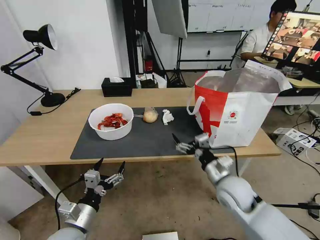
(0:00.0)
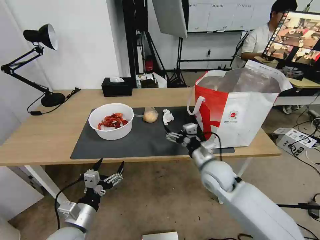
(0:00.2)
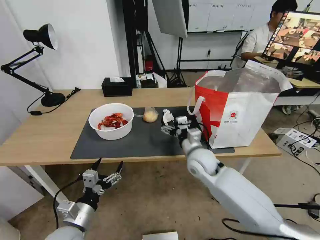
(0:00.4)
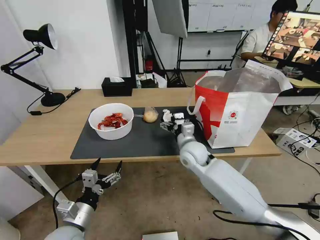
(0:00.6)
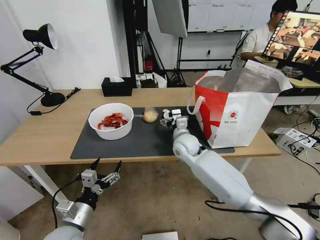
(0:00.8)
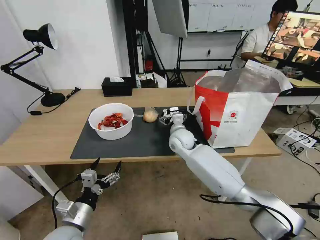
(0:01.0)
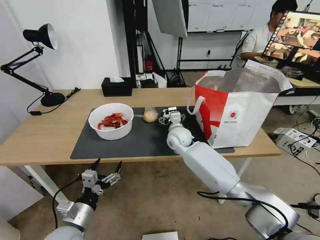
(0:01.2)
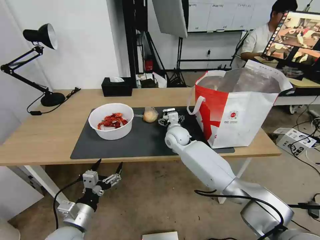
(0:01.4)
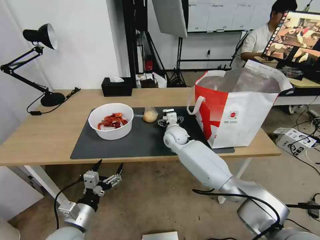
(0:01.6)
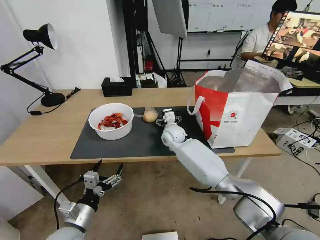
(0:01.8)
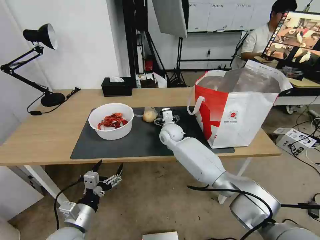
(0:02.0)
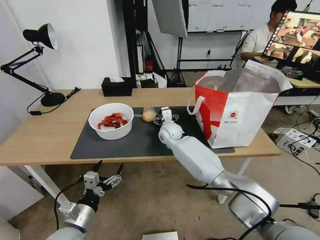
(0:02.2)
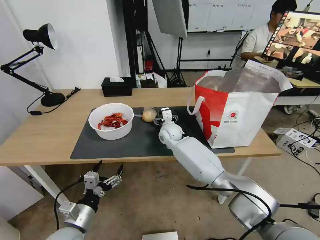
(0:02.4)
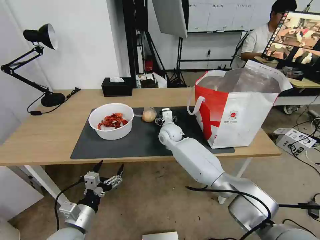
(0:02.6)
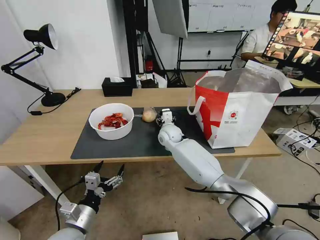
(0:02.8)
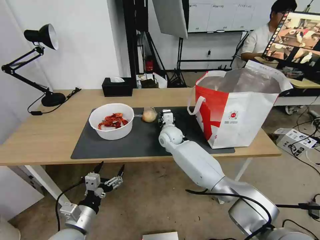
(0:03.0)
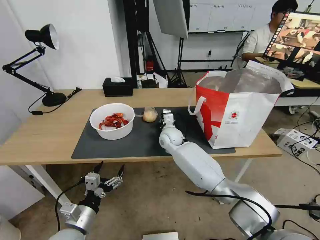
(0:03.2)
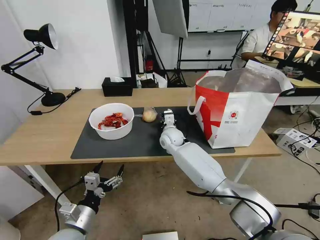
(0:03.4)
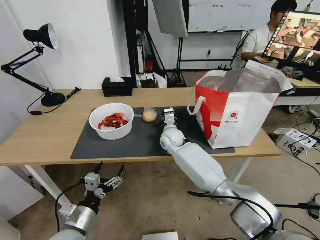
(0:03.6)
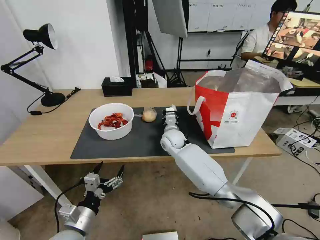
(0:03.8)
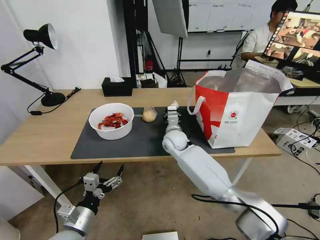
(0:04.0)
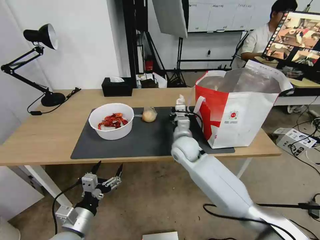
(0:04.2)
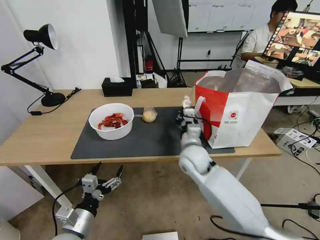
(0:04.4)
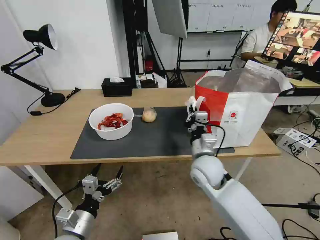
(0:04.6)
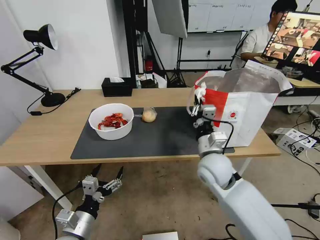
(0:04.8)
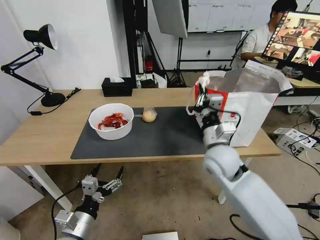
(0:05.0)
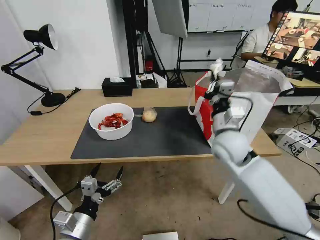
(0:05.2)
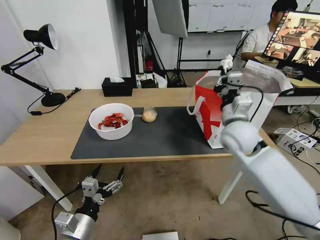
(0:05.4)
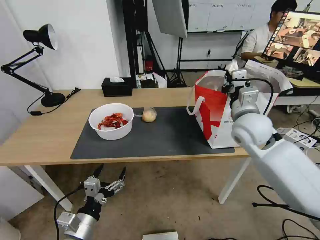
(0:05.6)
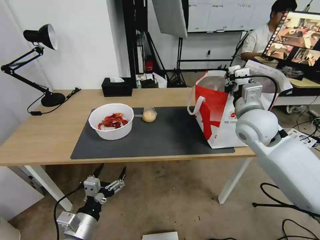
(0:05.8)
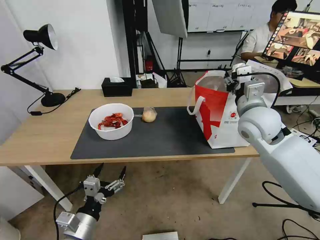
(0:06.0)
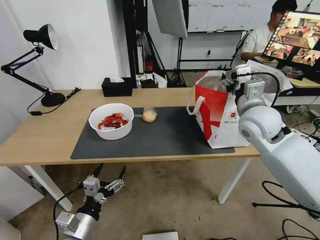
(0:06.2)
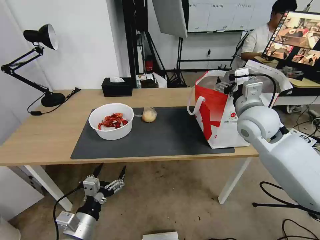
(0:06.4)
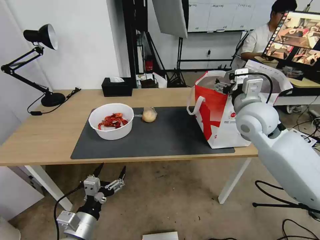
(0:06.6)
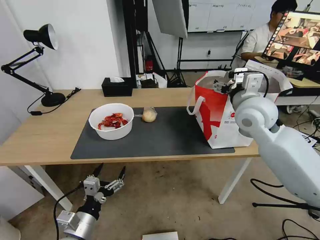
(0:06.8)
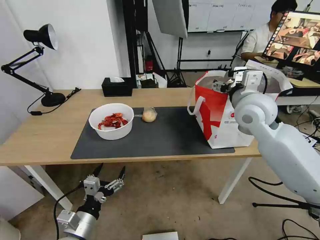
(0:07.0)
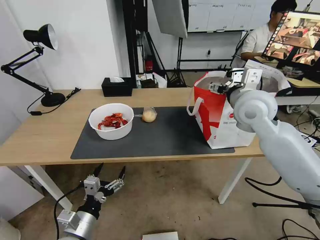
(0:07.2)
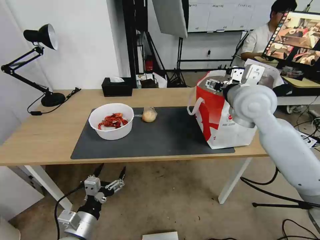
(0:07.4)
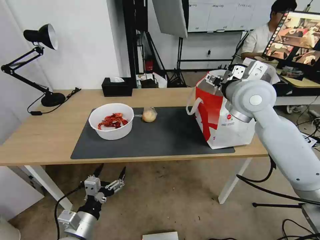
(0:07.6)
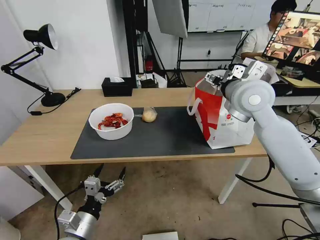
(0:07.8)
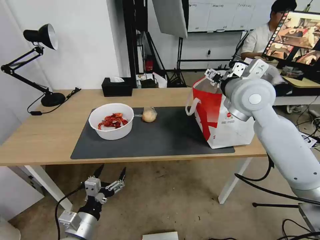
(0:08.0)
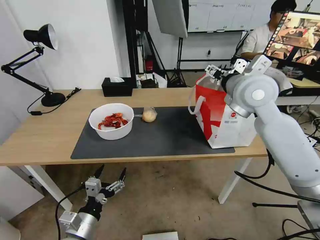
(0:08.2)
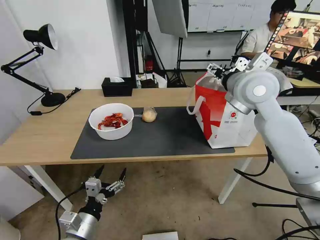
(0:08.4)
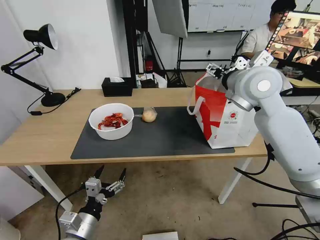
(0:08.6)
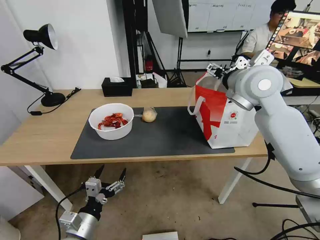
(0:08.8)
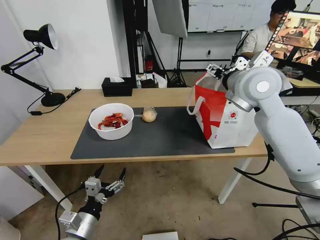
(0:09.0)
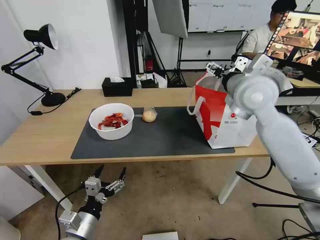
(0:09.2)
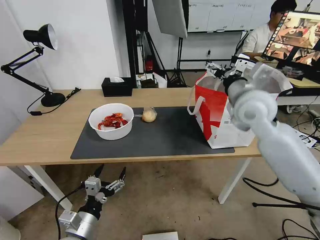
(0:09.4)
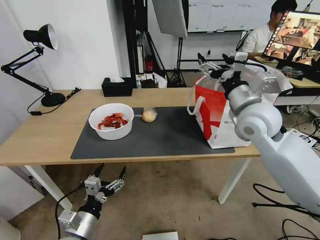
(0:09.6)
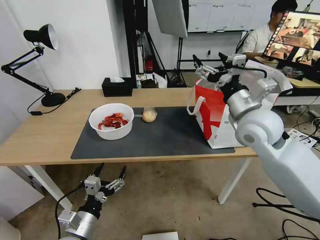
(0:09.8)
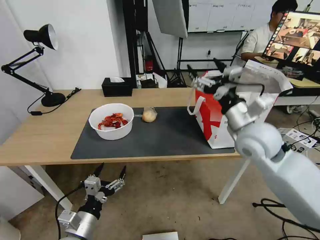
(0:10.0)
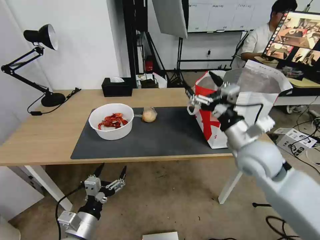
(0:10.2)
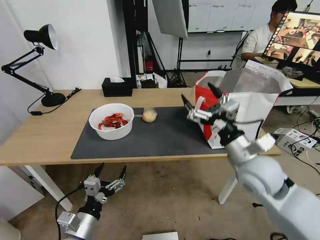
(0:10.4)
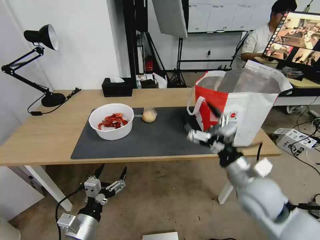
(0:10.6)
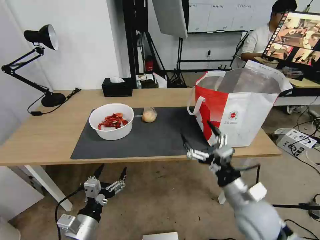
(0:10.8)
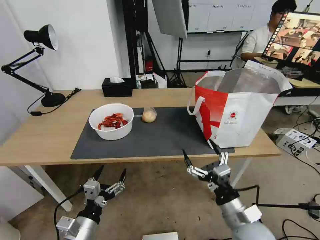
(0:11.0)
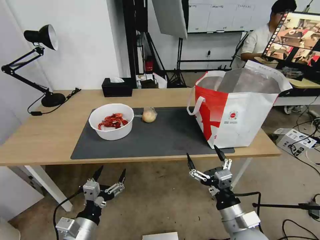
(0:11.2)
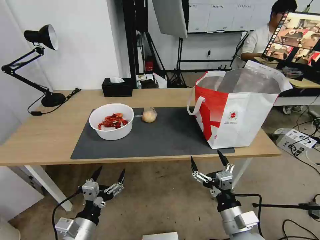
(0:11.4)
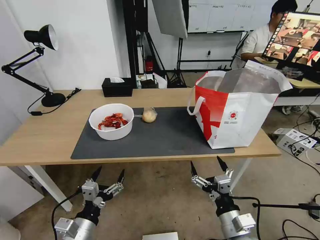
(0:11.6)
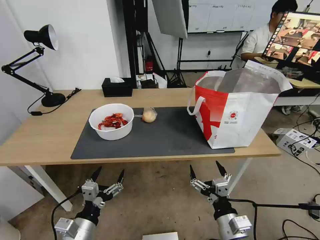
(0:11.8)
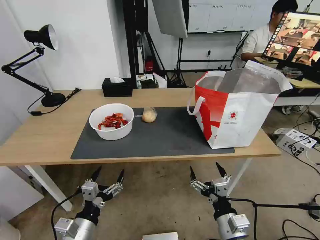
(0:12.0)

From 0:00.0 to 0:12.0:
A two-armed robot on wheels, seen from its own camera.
Task of the whole recording: Pick up the trash from the table and place it into the takeout bag.
From 0:00.0 to 0:01.6: The right gripper goes about 25 cm forward and to the left.
From 0:01.6 to 0:03.0: The right gripper closes its fingers.
From 0:03.0 to 0:04.4: The right gripper shifts approximately 15 cm backward and to the right, and closes up.
From 0:04.4 to 0:06.0: The right gripper goes roughly 20 cm upward and to the right, and opens its fingers.
From 0:06.0 to 0:07.6: The right gripper moves upward, approximately 5 cm, and opens.
From 0:07.6 to 0:09.0: The grippers move only a little.
From 0:09.0 to 0:10.4: The right gripper is displaced downward and backward by roughly 20 cm.
From 0:10.4 to 0:12.0: The right gripper is displaced backward and downward by approximately 20 cm.

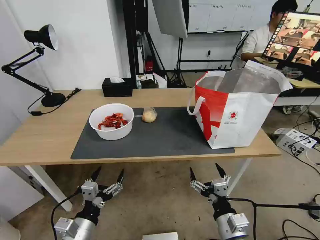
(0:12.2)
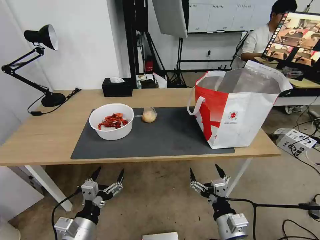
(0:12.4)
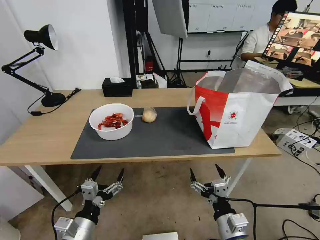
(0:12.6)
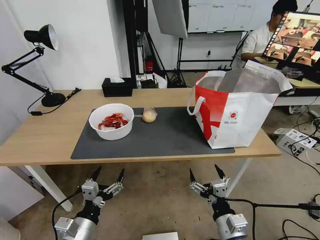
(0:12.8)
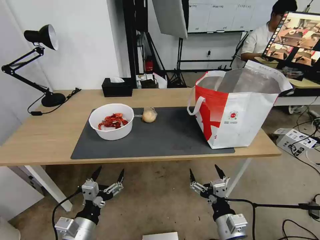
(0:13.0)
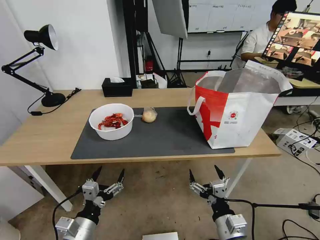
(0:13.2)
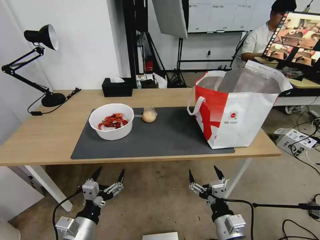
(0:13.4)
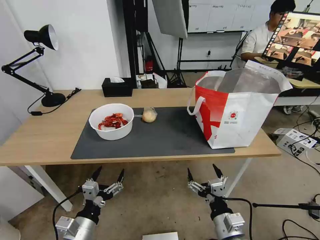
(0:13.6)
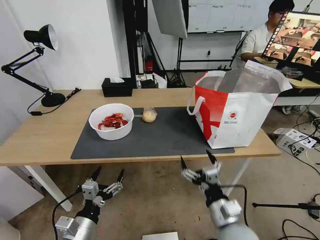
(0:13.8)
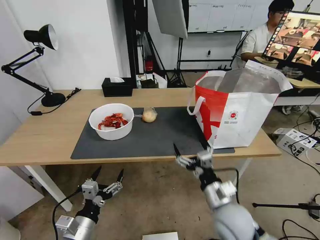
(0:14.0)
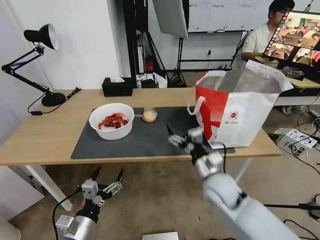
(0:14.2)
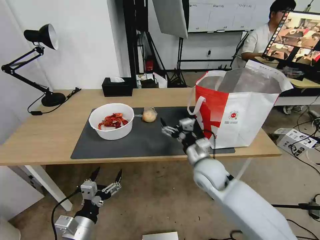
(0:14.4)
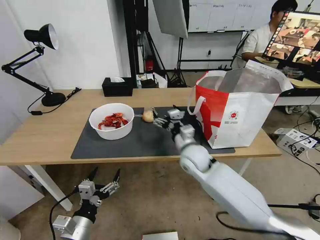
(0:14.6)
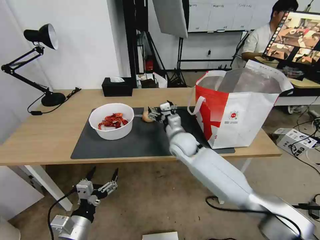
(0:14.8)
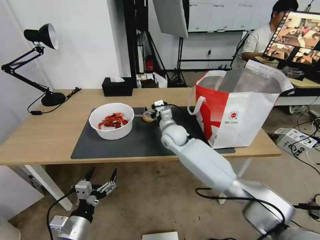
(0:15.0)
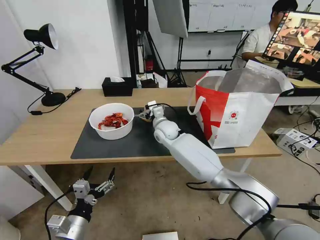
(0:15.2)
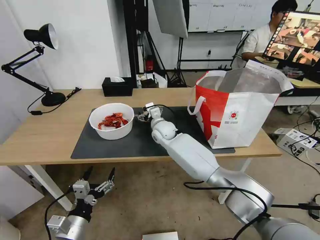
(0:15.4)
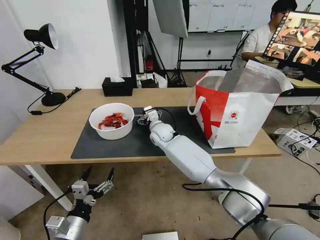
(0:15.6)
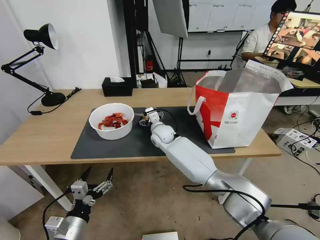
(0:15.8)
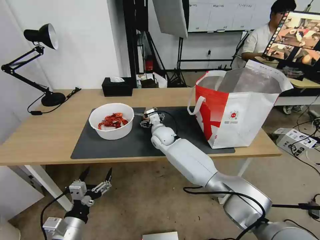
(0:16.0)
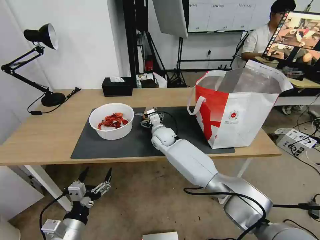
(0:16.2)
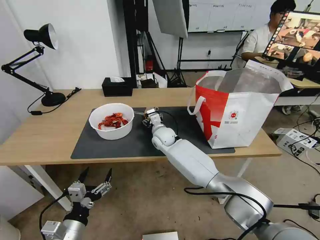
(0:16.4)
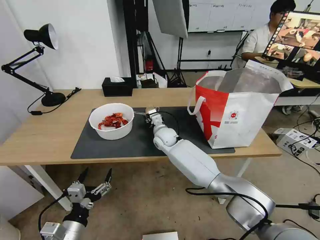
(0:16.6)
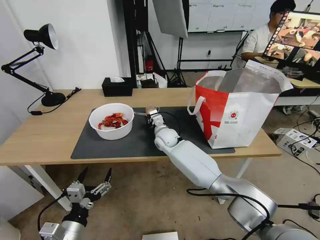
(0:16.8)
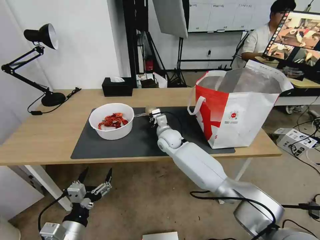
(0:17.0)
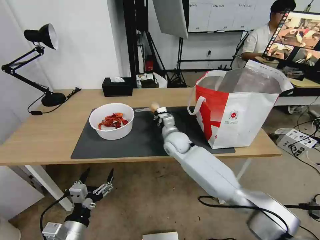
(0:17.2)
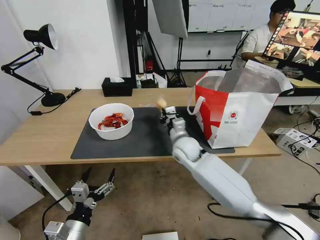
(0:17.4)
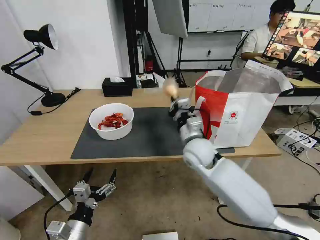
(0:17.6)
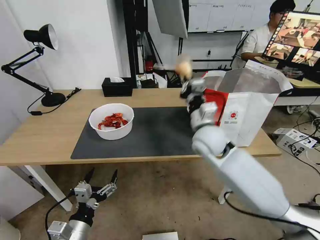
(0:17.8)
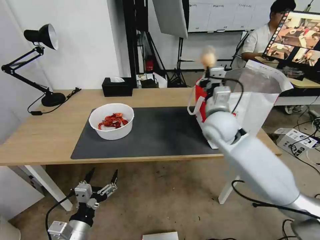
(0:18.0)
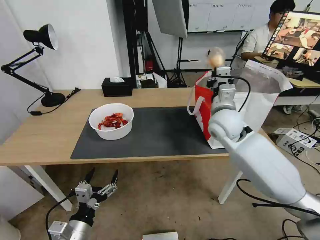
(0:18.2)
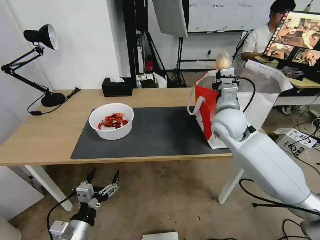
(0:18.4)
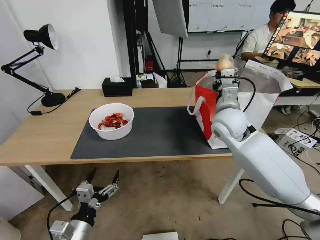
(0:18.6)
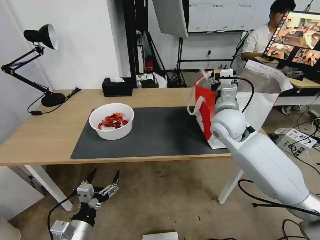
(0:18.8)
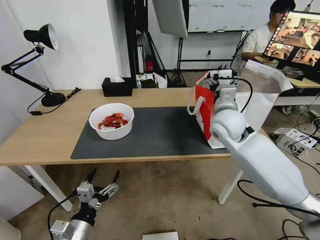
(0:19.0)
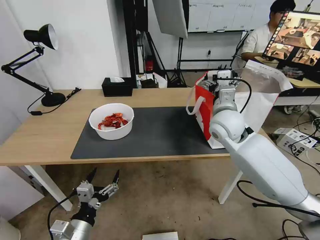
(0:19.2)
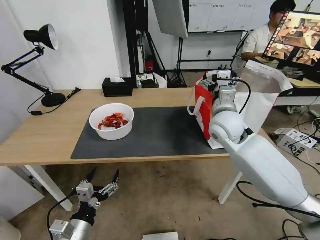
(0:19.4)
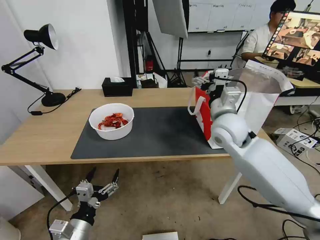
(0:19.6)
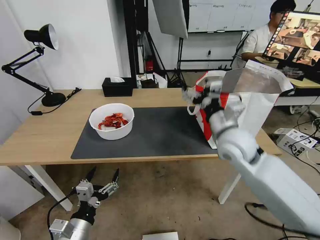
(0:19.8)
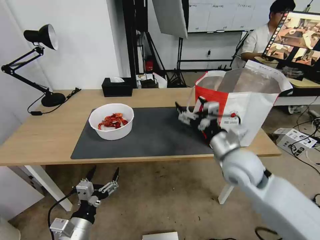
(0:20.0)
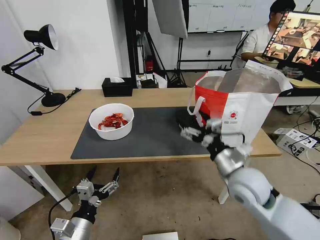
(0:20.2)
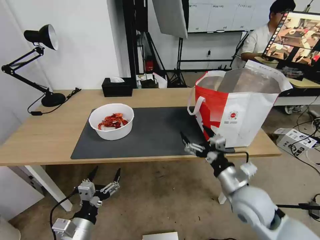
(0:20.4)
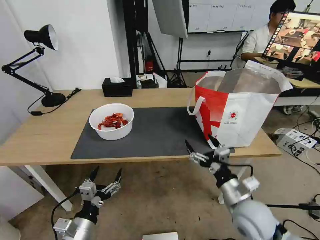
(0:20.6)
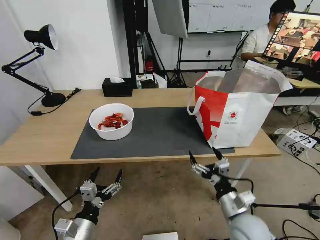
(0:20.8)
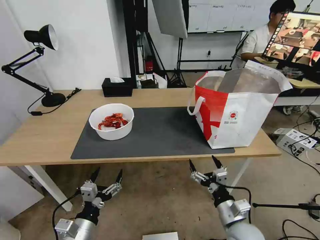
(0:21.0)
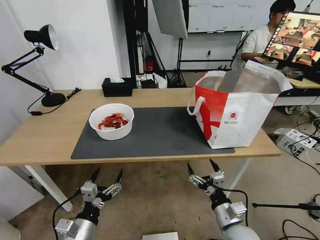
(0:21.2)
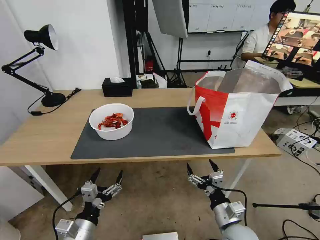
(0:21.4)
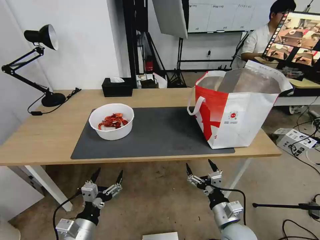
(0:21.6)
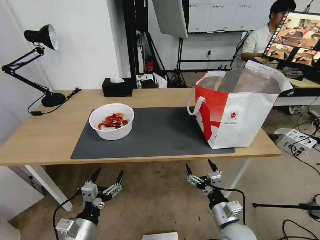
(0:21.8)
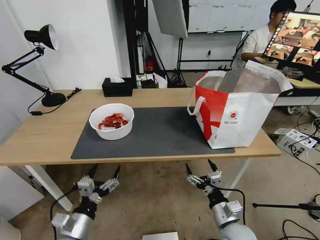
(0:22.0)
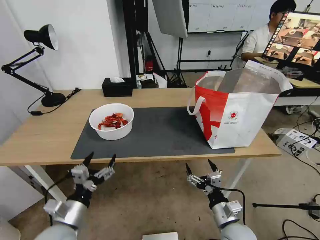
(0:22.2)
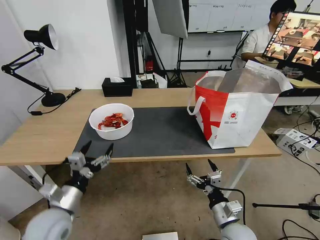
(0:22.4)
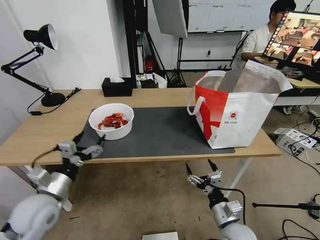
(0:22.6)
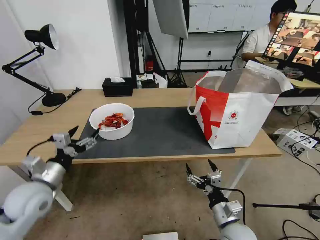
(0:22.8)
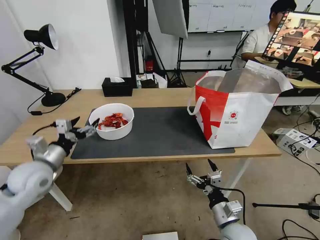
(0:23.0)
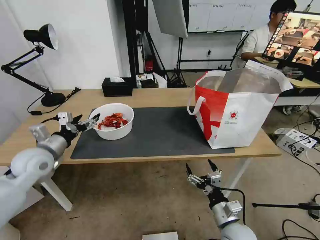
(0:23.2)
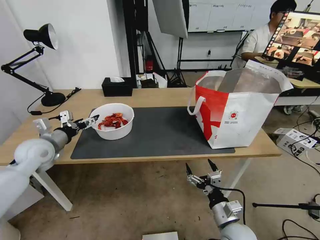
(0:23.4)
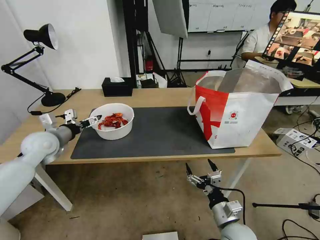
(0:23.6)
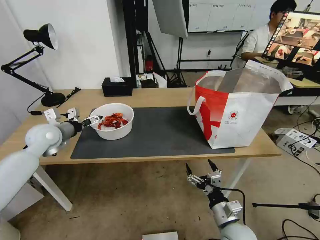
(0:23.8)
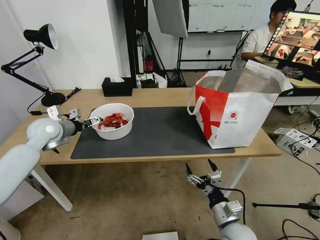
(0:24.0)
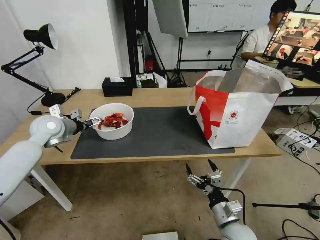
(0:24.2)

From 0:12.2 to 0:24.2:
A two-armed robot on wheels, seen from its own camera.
Task of the whole recording: Pick up the trash from the table and place it into the takeout bag.
From 0:12.2 to 0:13.8: There are only small adjustments of the grippers.
From 0:13.8 to 0:15.2: The right gripper travels forward and to the left by about 40 cm.
From 0:15.2 to 0:16.6: The right gripper closes up.
From 0:16.6 to 0:18.2: The right gripper shifts some 25 cm to the right, upward and backward, and closes up.
From 0:18.2 to 0:19.8: The right gripper is displaced backward by some 5 cm, and opens up.
From 0:19.8 to 0:21.2: The right gripper heads downward and backward, covering some 30 cm.
From 0:21.2 to 0:22.6: The left gripper goes approximately 15 cm forward, upward and to the left.
From 0:22.6 to 0:24.2: The left gripper moves forward, roughly 25 cm.
